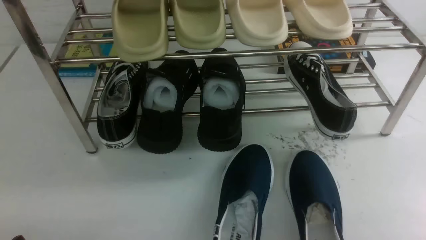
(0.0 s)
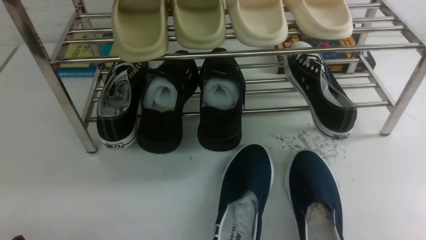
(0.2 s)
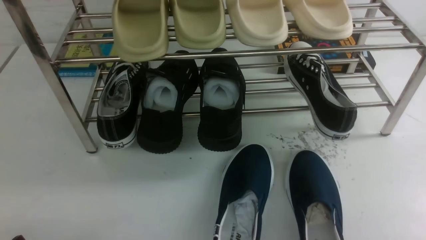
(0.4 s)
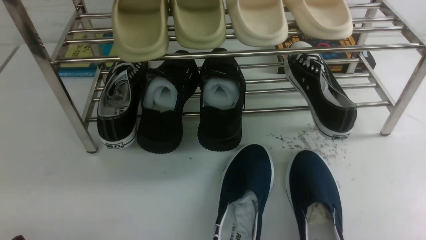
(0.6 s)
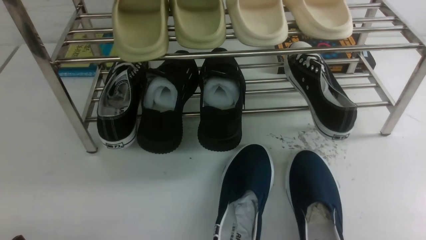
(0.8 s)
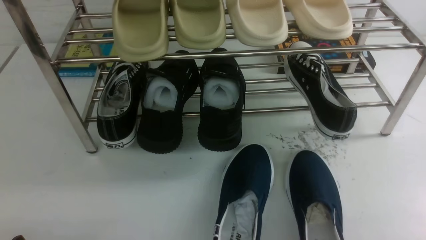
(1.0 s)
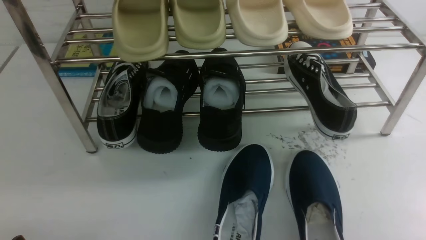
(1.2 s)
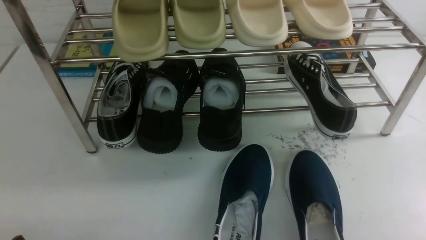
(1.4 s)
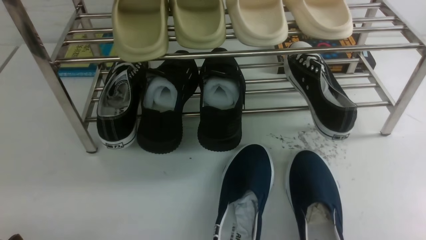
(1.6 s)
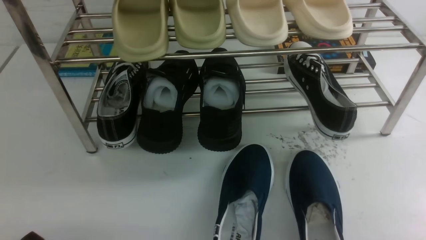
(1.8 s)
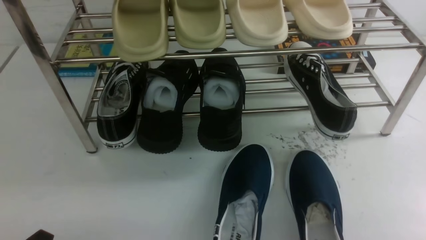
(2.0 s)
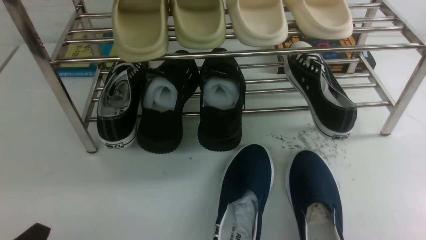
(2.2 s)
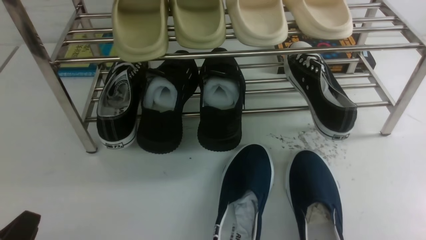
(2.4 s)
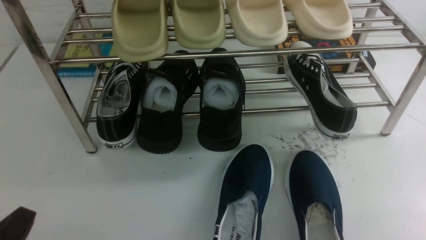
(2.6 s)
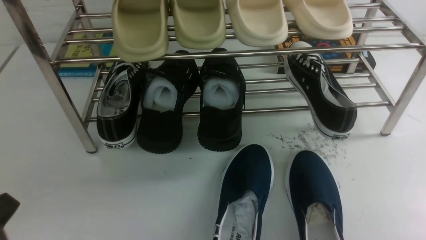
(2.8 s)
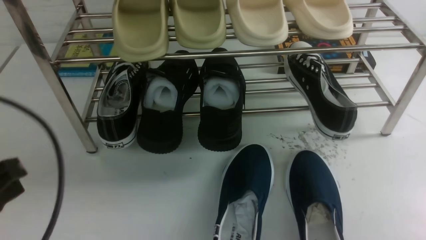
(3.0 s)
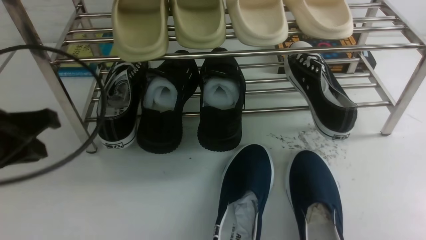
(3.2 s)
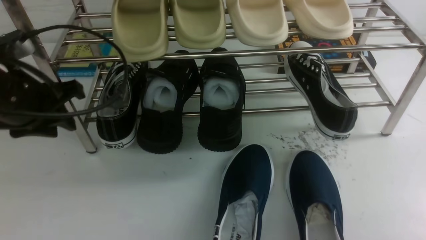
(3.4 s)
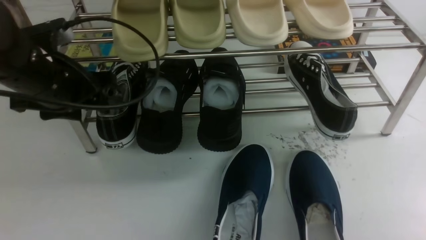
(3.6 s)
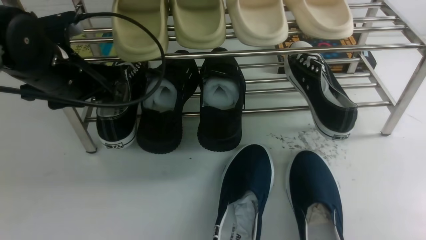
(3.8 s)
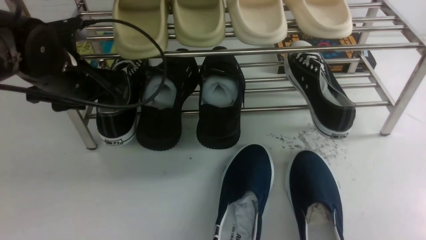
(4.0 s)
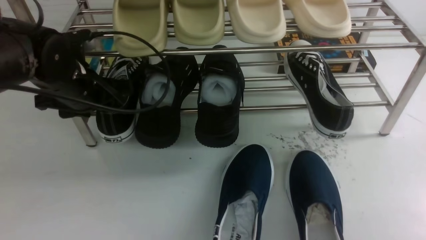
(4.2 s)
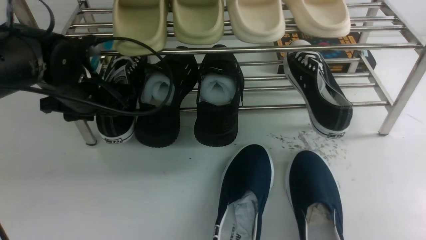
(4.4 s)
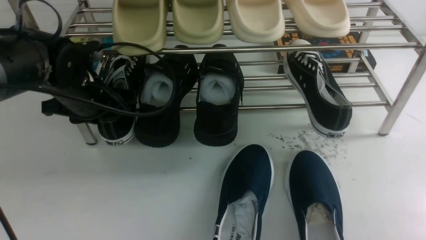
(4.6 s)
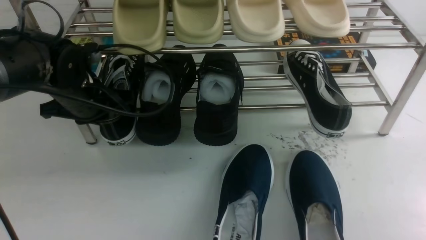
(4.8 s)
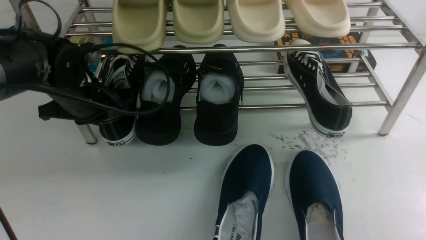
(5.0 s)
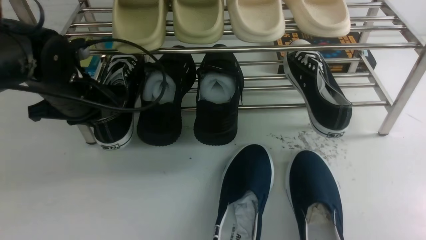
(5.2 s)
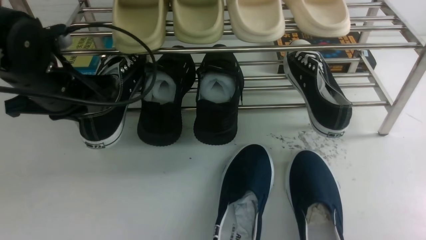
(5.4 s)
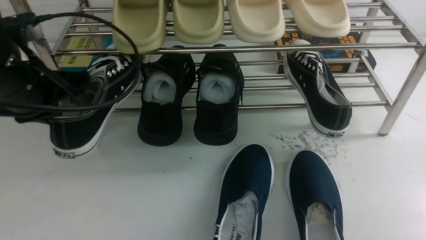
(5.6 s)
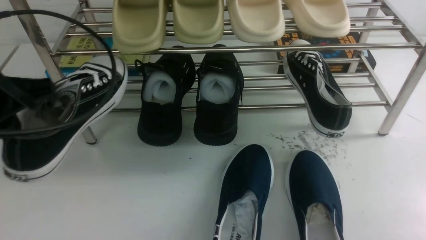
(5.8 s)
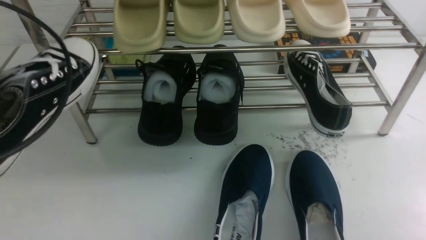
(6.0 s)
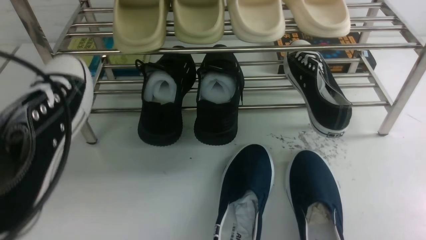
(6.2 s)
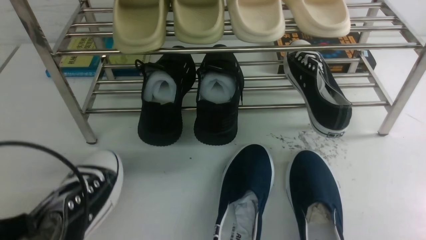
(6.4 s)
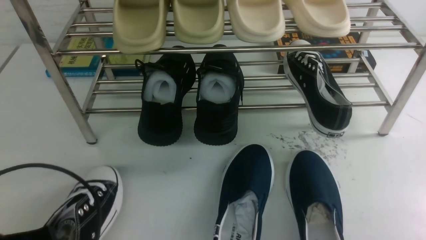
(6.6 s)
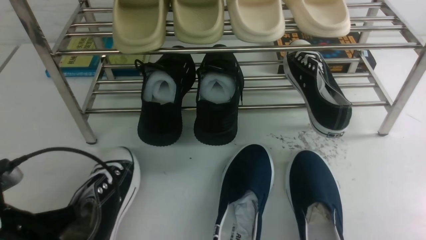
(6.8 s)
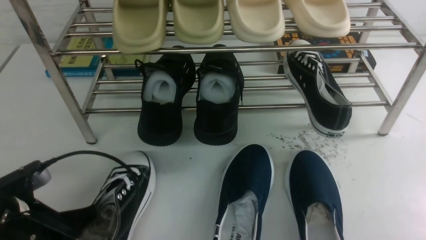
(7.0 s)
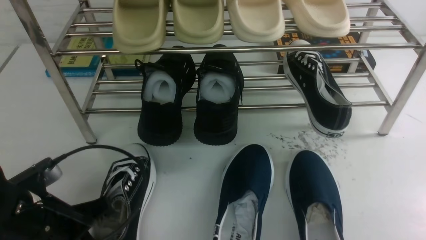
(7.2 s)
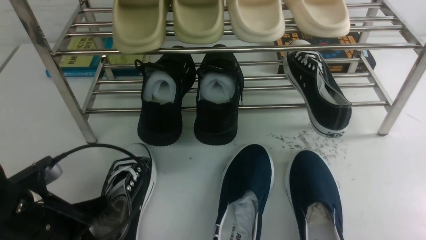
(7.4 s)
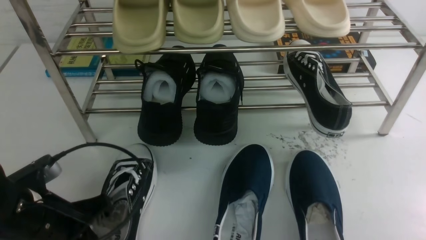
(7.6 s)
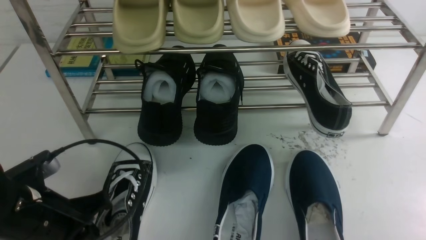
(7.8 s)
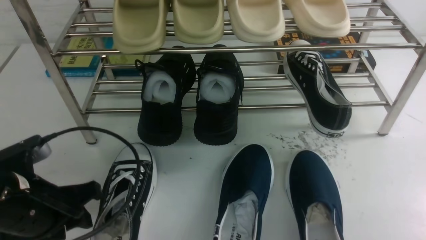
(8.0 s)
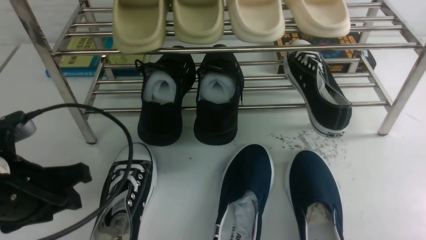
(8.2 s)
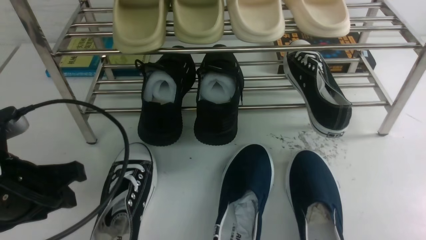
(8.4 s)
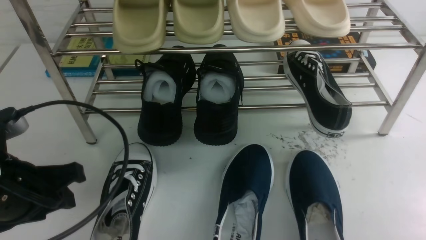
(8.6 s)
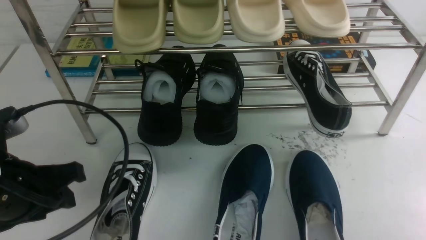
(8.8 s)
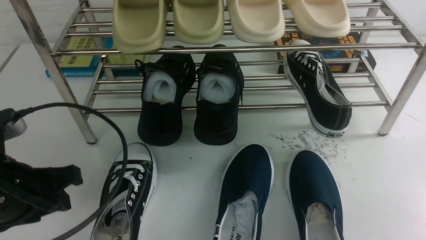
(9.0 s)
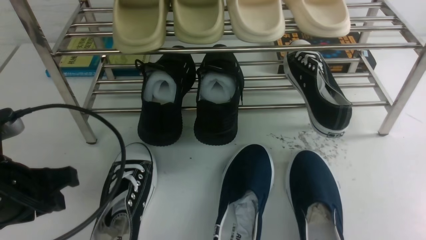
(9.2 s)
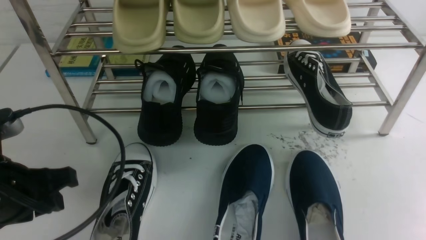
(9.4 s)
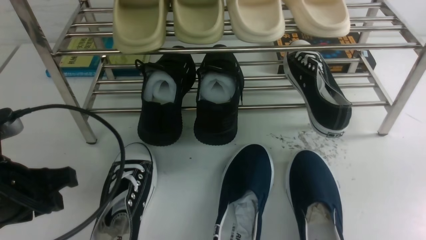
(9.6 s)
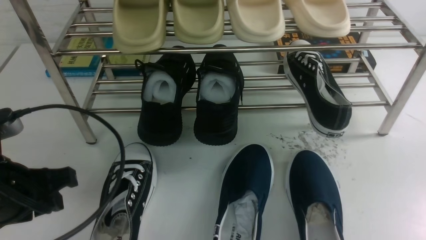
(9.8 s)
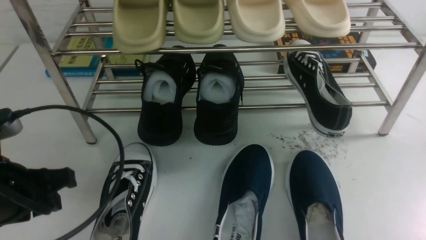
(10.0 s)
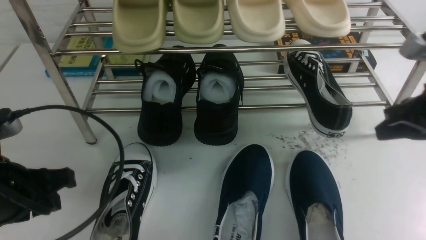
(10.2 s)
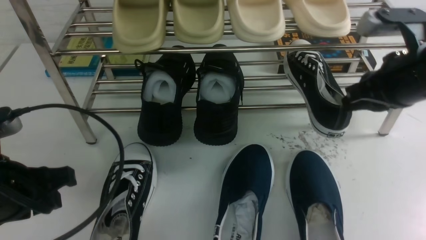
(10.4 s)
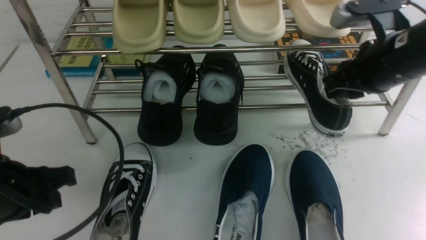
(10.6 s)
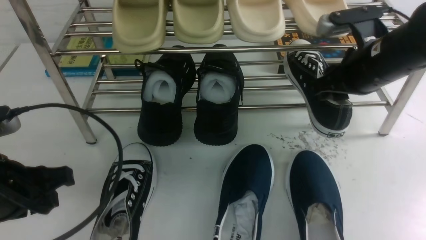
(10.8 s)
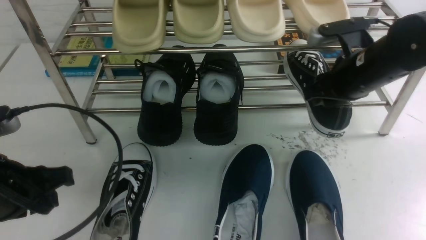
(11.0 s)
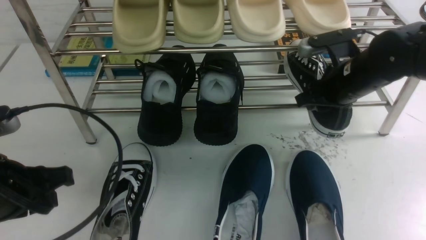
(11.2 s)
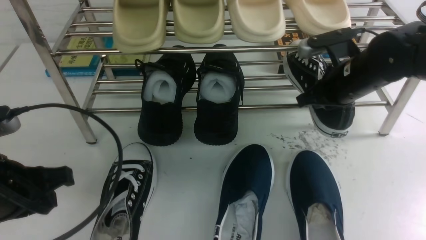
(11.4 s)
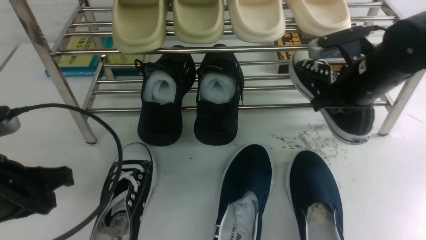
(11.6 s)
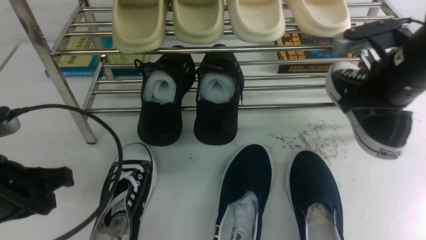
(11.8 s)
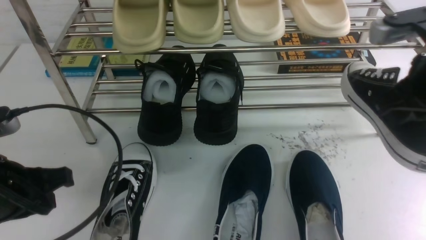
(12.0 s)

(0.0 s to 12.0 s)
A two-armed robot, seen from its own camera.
Step, 0.0 s - 5.2 s: use the left arm to clamp a shoe on the left side of the shoe rack.
Step, 5.4 s - 8.0 s: Use your left arm to remove the clamped shoe from the shoe rack and put it down.
Step, 8.2 s - 11.8 s: use the right arm to clamp a shoe on the right side of the shoe rack.
1.6 s - 3.0 s: The left gripper heads upward and forward, covering approximately 15 cm, and closes its fingers.
3.0 s - 4.4 s: The left gripper shifts about 20 cm forward, and opens its fingers.
4.4 s - 6.0 s: The left gripper is displaced backward and upward by about 20 cm, and closes its fingers.
6.0 s - 7.6 s: The left gripper travels downward by about 15 cm.
7.6 s - 9.0 s: The left gripper moves upward, approximately 5 cm, and opens up.
9.0 s - 10.4 s: The right gripper shifts approximately 25 cm forward and upward, and closes, then reopens.
10.4 s - 12.0 s: The right gripper travels forward and back again, some 10 cm each way, and closes.

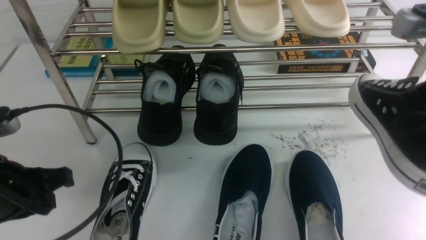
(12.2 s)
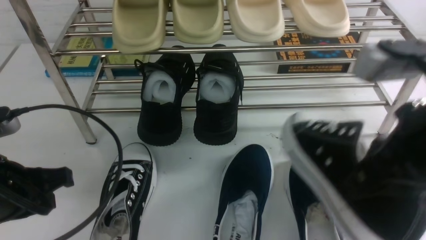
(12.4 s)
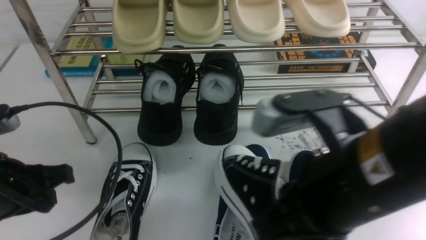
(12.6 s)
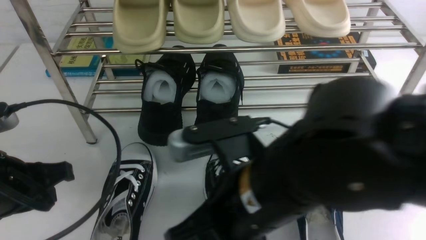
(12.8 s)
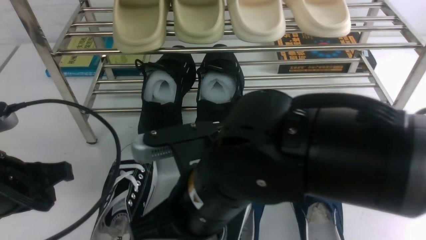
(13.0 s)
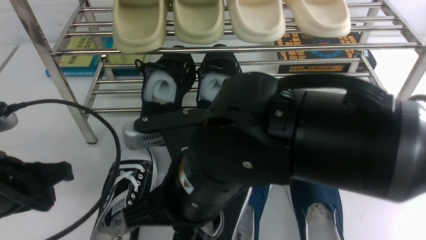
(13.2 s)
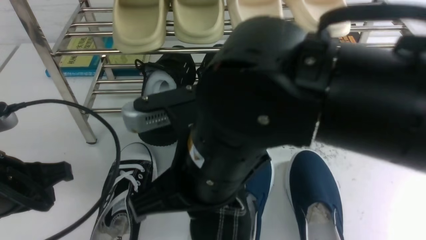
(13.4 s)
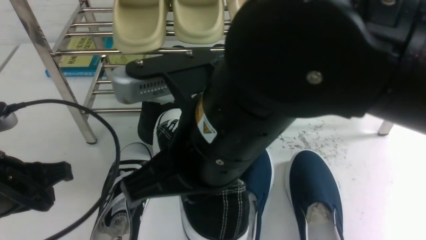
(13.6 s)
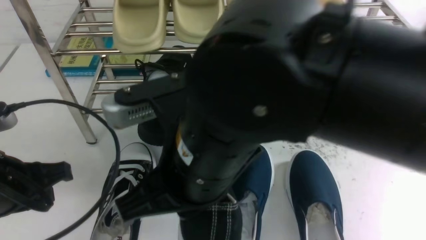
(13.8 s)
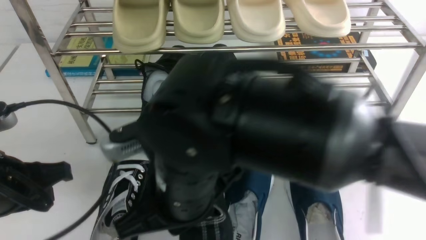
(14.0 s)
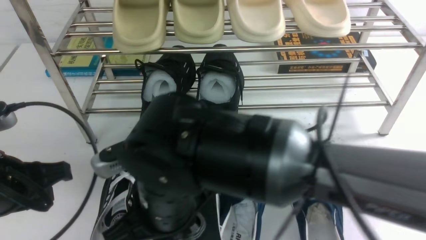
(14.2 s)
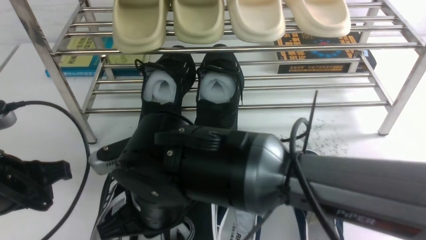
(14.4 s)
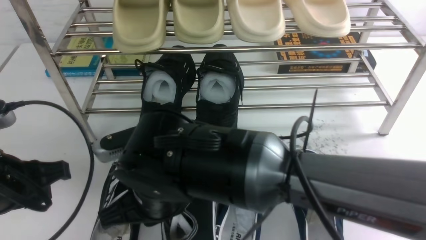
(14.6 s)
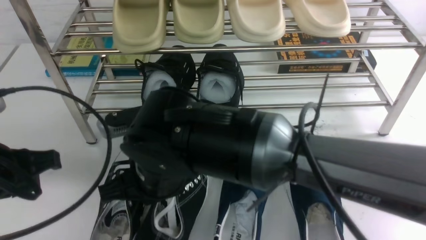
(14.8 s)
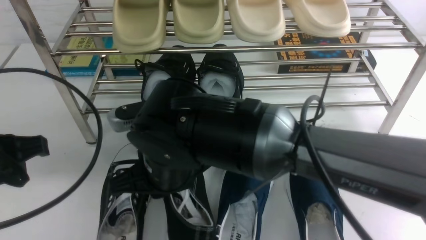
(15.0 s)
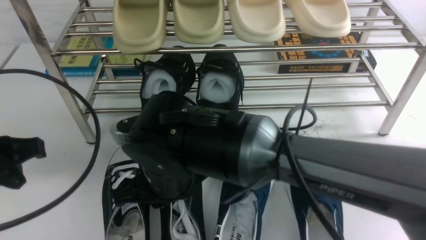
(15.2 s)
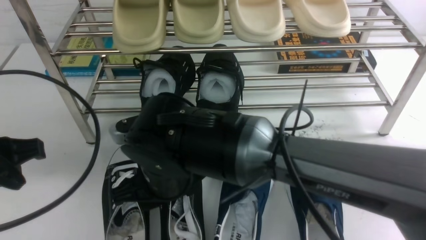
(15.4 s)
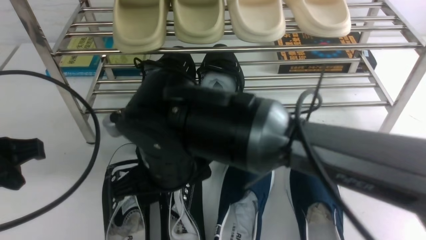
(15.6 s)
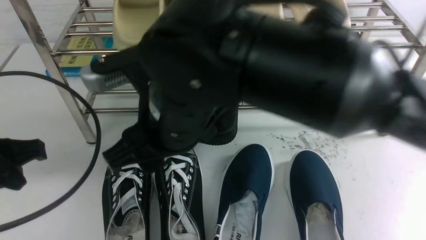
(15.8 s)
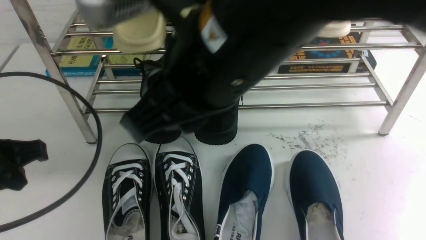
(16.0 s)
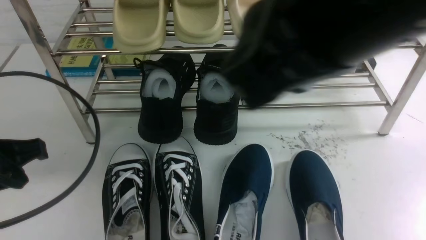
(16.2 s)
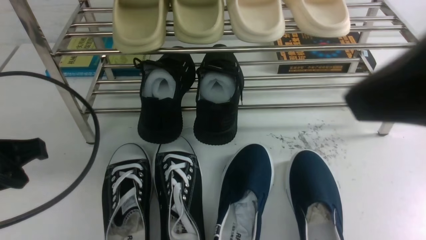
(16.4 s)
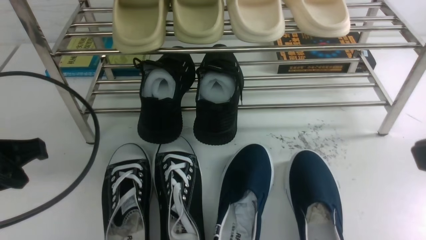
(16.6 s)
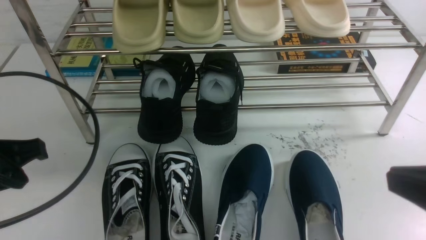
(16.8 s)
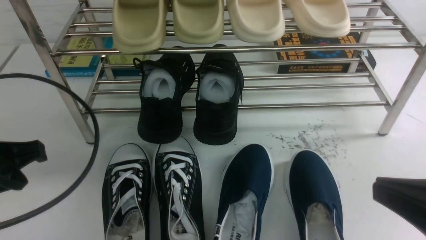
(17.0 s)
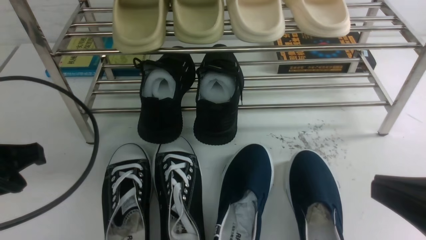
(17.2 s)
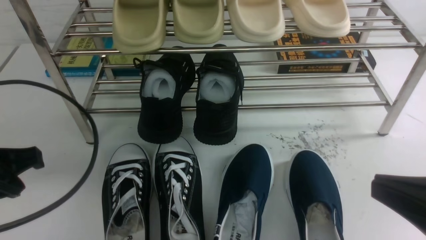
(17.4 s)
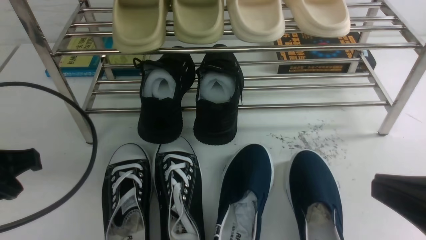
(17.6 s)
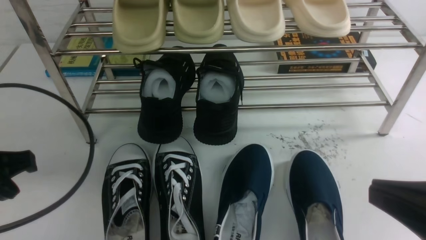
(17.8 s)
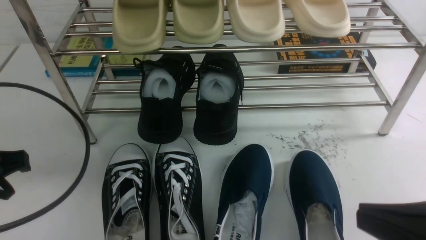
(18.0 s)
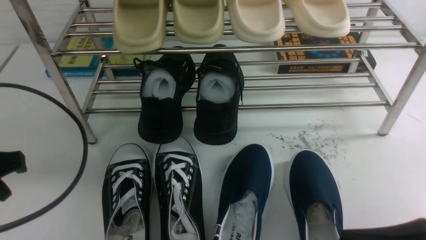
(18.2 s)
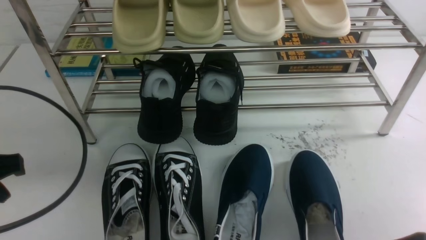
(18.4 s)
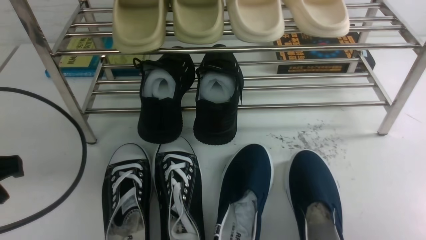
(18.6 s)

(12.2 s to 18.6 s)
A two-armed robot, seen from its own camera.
Step, 12.2 s - 15.6 s: use the right arm to take out the clamped shoe from the shoe rack and put it down.
12.2 s - 13.8 s: The right gripper travels to the left by about 25 cm.
13.8 s - 15.4 s: The right gripper moves downward and forward, some 10 cm, and opens its fingers.
15.4 s - 17.0 s: The right gripper travels to the right and backward by some 35 cm, and closes.
